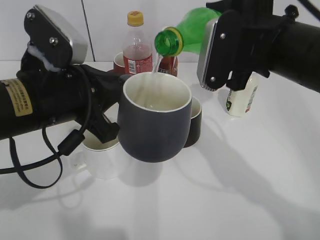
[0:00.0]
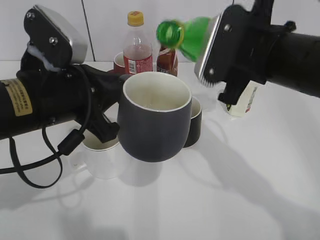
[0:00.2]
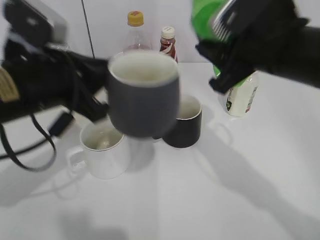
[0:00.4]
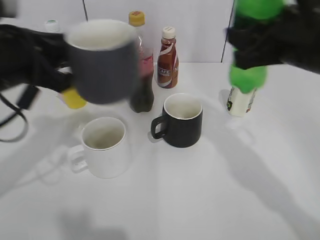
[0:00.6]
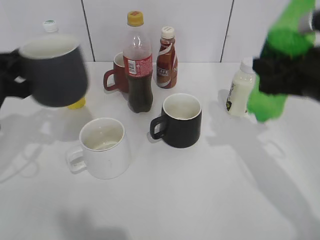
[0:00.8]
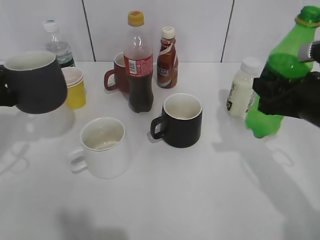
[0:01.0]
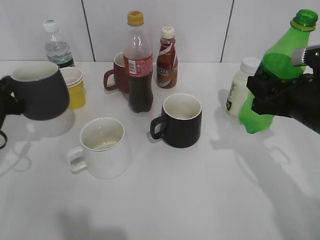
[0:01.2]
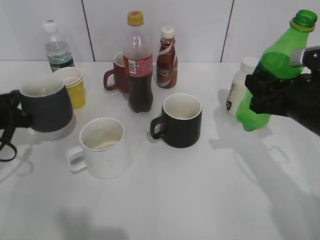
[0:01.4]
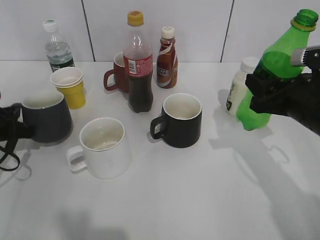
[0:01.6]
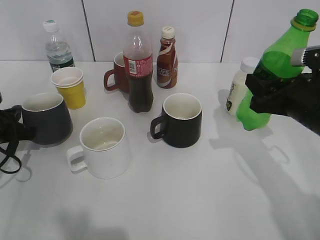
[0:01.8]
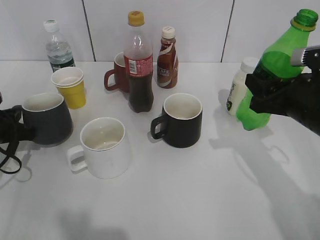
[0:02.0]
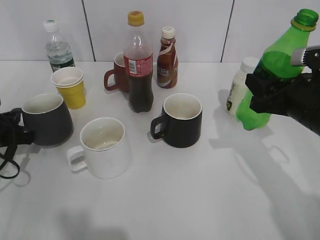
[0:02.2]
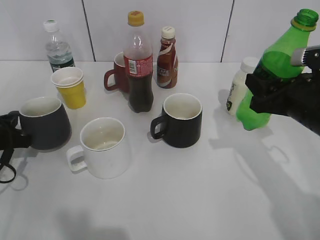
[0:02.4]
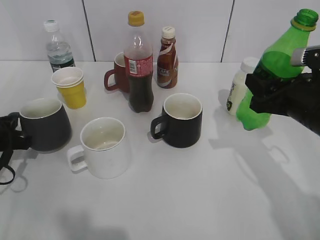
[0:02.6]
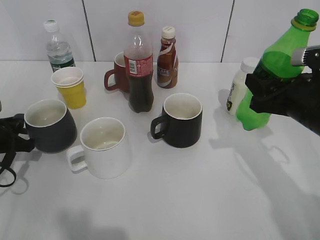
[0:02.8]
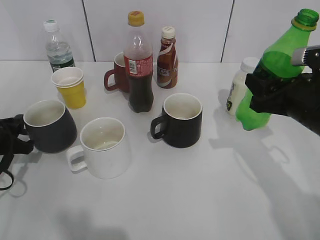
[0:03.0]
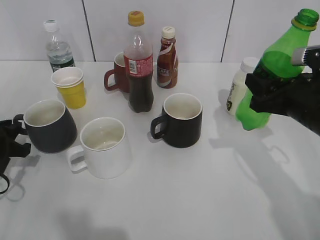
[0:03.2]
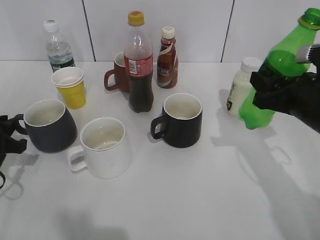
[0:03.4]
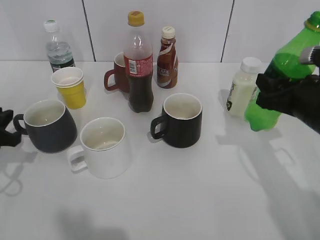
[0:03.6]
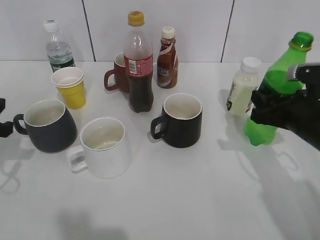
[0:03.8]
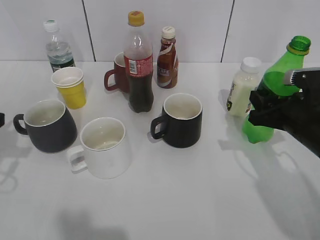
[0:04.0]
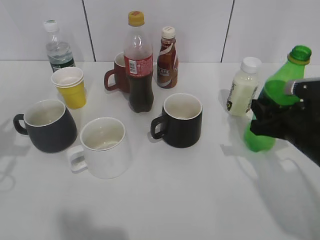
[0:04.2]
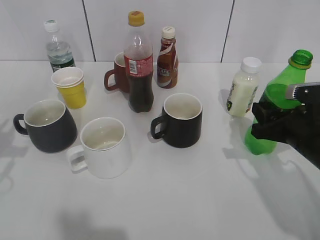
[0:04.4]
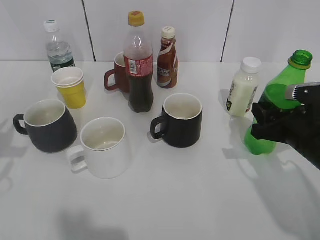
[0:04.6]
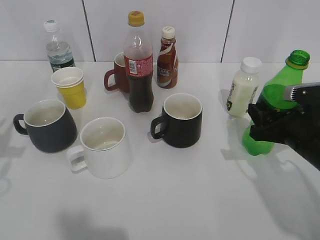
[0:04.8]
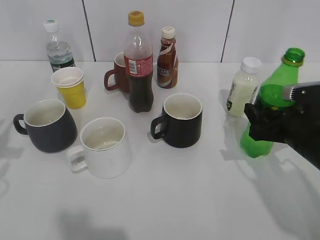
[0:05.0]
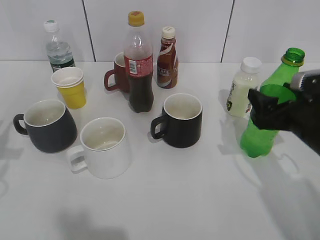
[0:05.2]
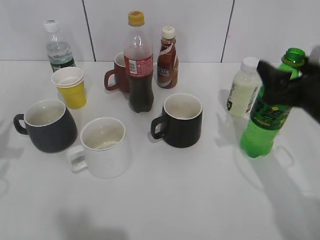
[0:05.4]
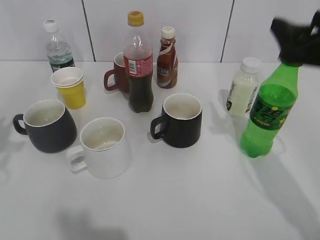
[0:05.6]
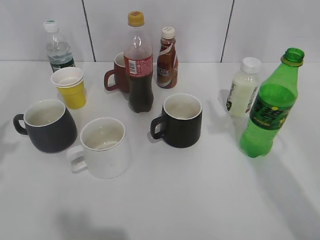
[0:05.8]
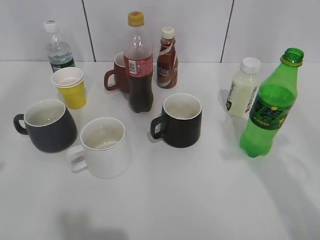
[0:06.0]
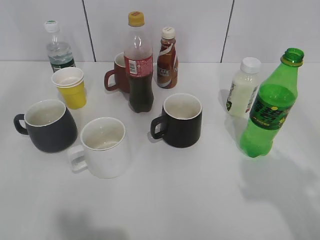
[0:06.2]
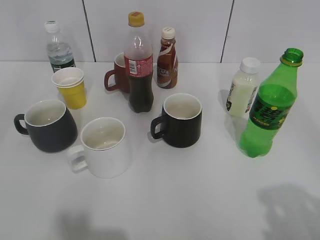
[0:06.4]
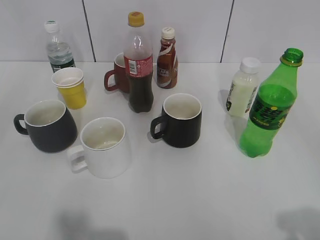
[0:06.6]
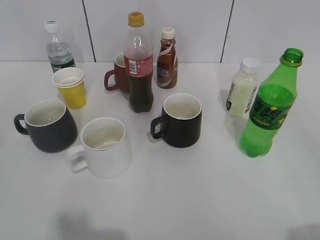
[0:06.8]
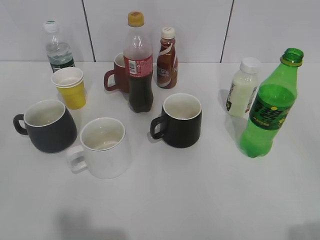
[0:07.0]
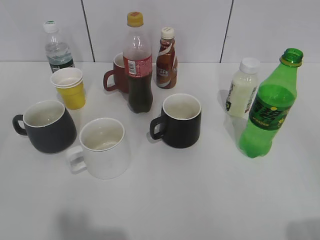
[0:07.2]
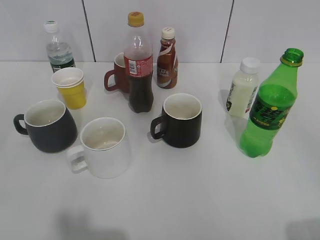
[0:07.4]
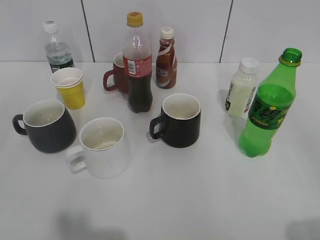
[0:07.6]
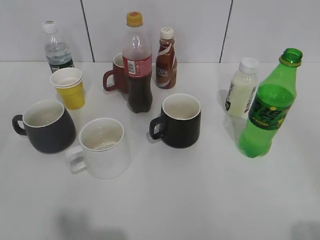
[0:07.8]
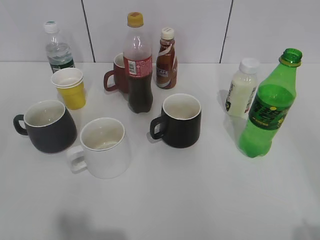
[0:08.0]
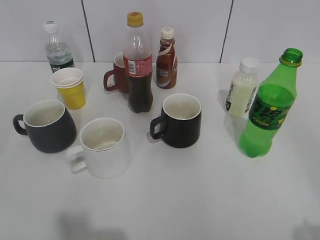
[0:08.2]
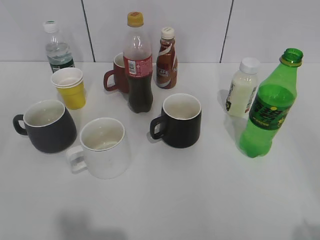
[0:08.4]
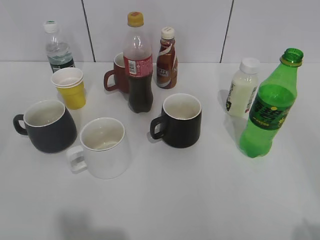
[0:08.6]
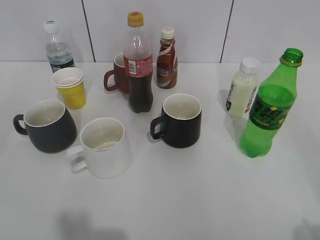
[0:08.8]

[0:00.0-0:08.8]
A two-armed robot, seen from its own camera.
Step, 0:00.4 to 0:03.2: Place the grey cup on the table with left gripper.
Step, 0:03.4 to 0:05.4: Place the sprite bottle on the table with right gripper.
0:00.0 to 0:01.4: The left gripper heads to the left, downward and forward, covering roughly 20 cm. The right gripper moves downward and to the right, about 15 cm.
0:01.4 to 0:03.0: The left gripper opens its fingers.
0:03.0 to 0:04.4: The right gripper heads downward, covering approximately 5 cm. The left gripper heads upward, covering roughly 10 cm.
0:04.4 to 0:05.8: The right gripper heads upward, covering approximately 25 cm, and opens up.
